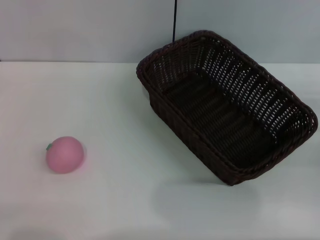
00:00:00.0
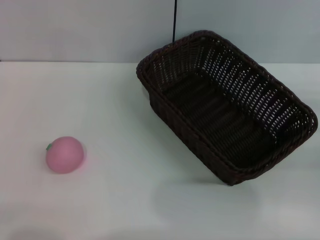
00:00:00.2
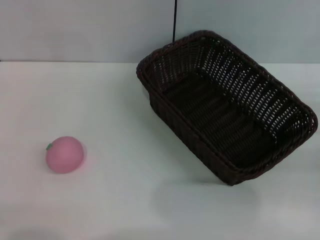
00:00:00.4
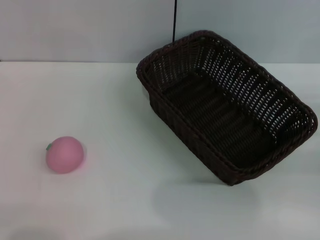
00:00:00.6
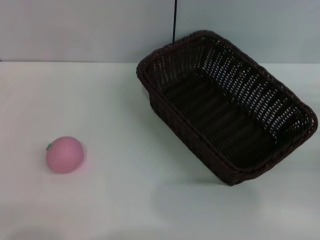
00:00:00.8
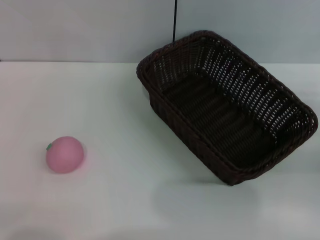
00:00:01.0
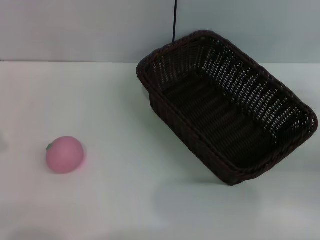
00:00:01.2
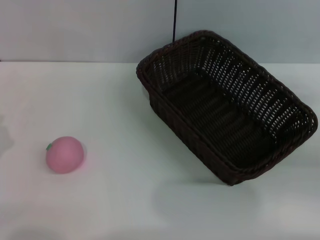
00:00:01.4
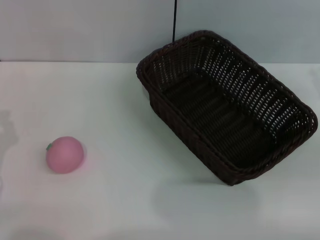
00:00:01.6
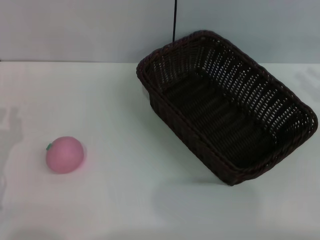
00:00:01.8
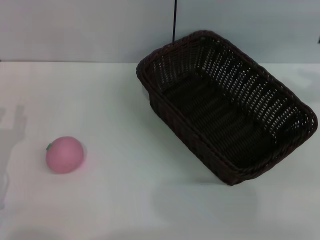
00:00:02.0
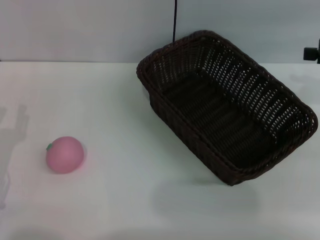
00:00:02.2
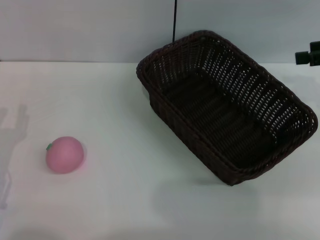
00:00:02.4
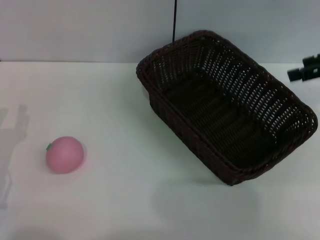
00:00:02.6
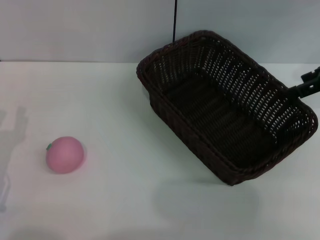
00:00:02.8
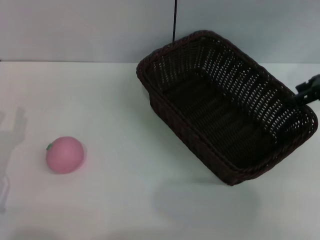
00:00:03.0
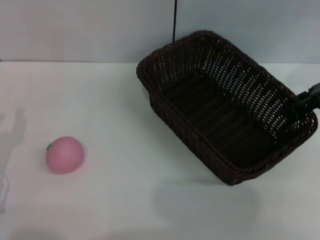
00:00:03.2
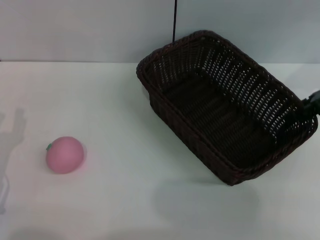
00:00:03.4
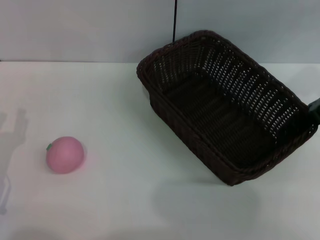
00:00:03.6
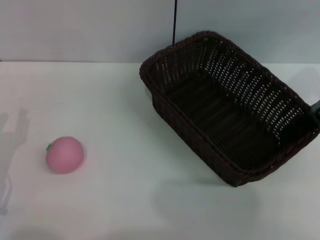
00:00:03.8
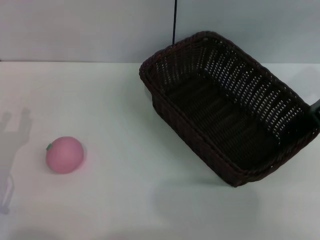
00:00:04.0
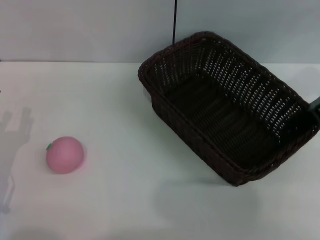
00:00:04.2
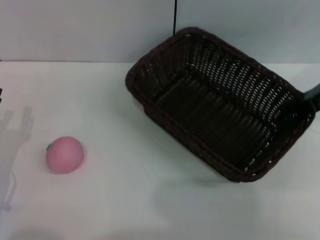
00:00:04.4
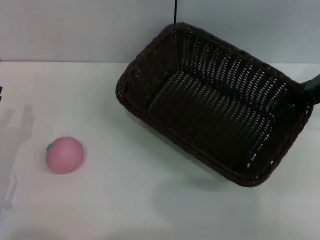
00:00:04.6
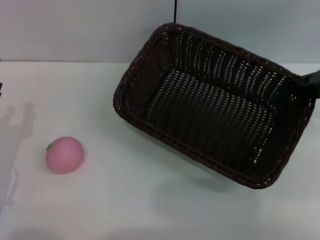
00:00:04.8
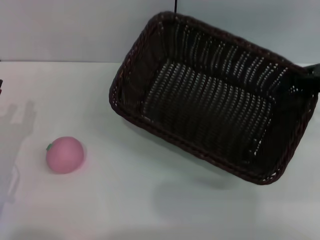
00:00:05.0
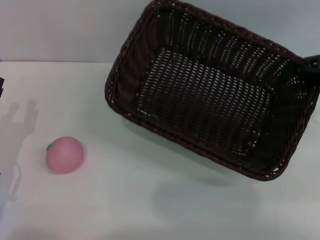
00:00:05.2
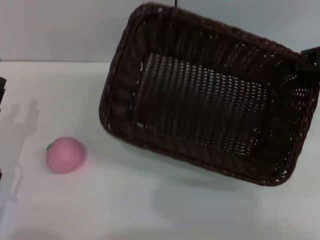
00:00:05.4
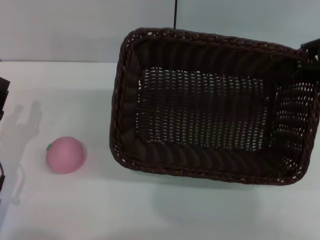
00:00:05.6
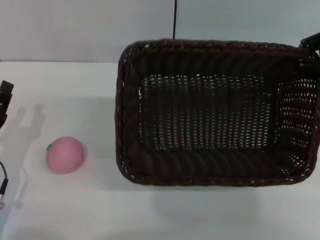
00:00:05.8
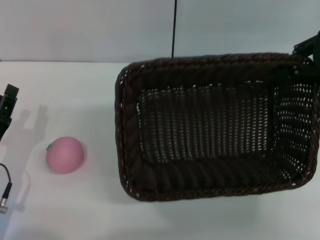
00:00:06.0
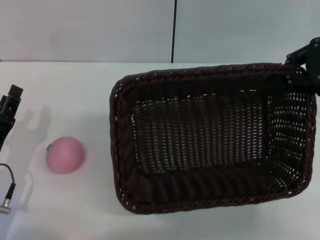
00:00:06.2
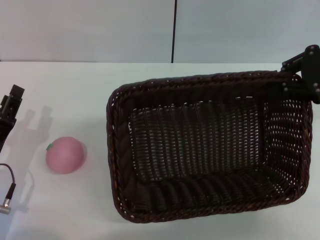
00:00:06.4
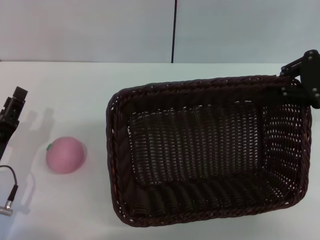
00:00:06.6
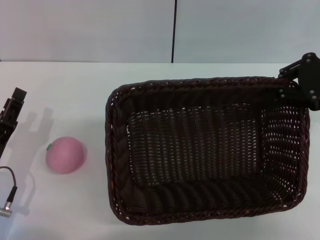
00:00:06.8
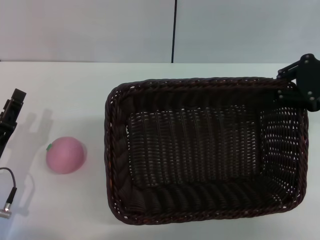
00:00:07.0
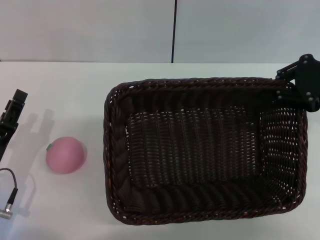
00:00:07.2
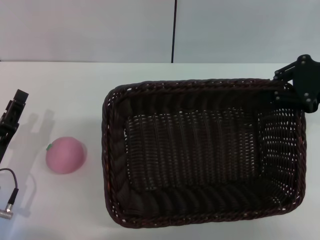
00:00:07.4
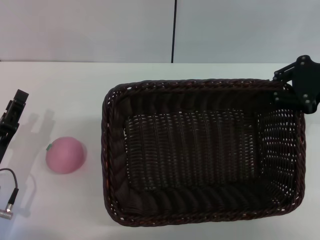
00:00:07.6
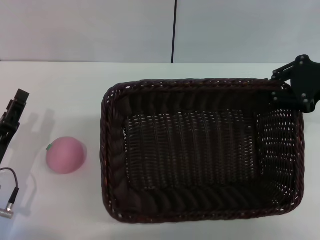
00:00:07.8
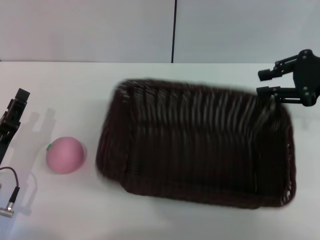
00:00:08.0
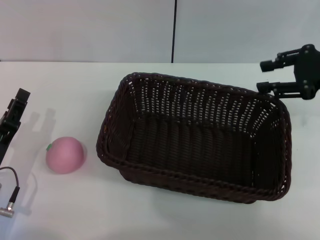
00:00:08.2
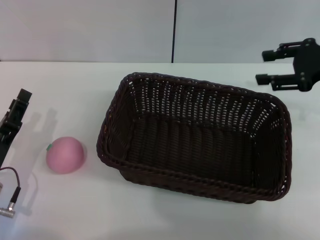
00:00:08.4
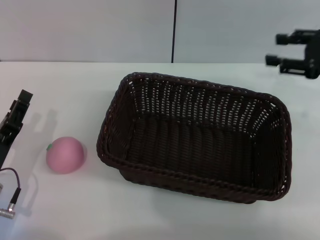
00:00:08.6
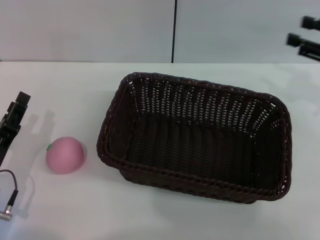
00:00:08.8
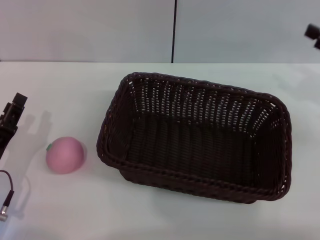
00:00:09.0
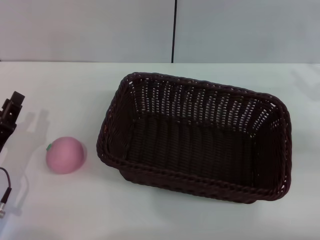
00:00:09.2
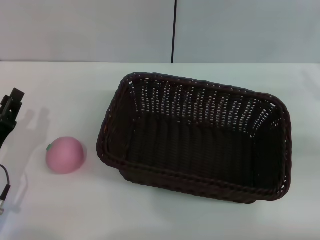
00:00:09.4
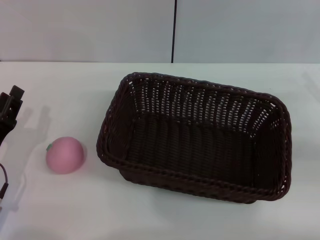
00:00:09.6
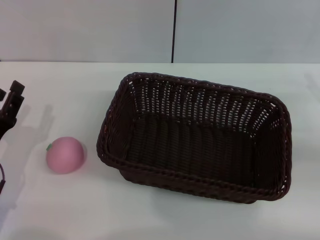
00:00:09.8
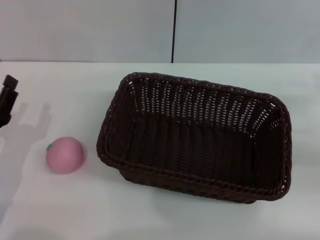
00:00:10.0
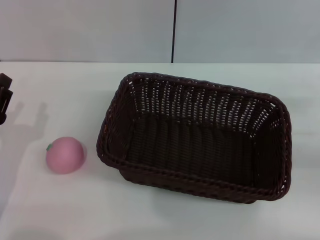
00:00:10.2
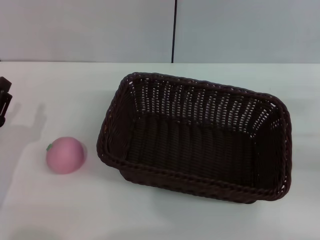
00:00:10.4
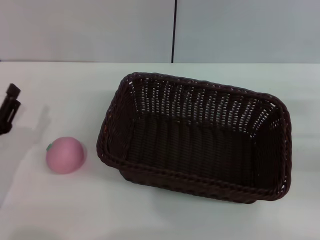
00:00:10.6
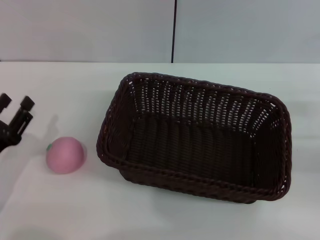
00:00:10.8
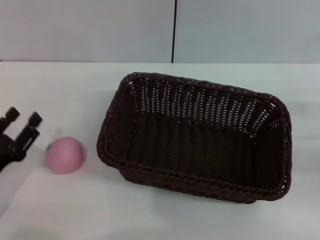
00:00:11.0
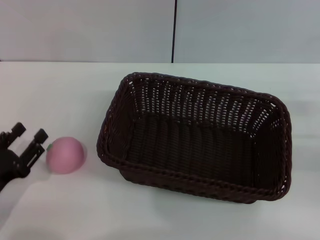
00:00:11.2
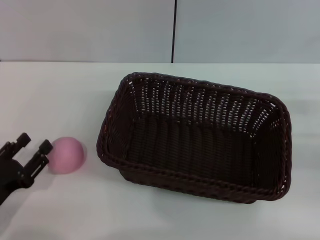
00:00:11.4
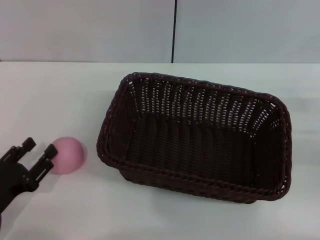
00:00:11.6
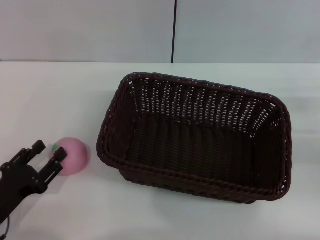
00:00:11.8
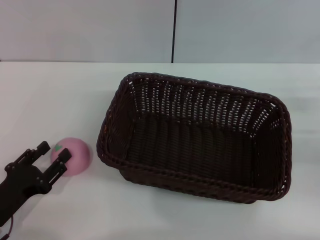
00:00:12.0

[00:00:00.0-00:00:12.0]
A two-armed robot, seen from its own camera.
Step, 00:00:00.0 to 00:00:04.6: Pick up the dark basket with the right gripper.
Step, 00:00:04.8 to 00:00:08.4: Place the dark basket in the center of view with the right gripper.
00:00:01.6 to 00:00:03.0: The right gripper goes roughly 15 cm upward, forward and to the left, and opens up.
00:00:03.0 to 00:00:04.4: The right gripper closes up.
00:00:07.6 to 00:00:09.0: The right gripper travels to the right by about 5 cm, and opens its fingers.
00:00:09.0 to 00:00:10.4: The right gripper shifts approximately 10 cm downward and backward.
00:00:10.4 to 00:00:12.0: The left gripper changes place by some 5 cm.

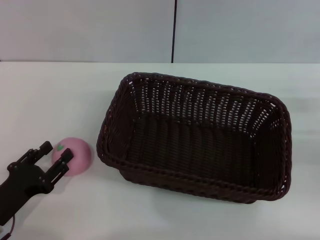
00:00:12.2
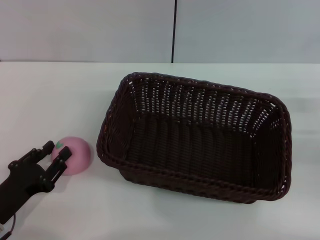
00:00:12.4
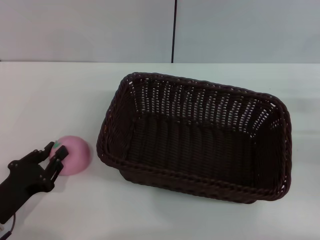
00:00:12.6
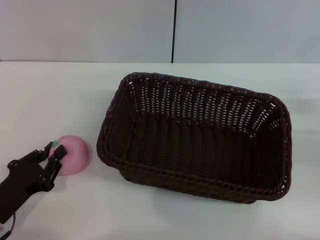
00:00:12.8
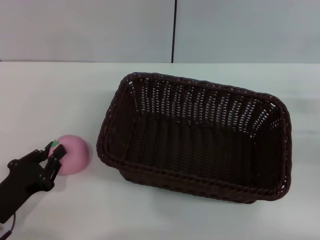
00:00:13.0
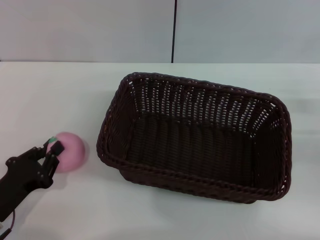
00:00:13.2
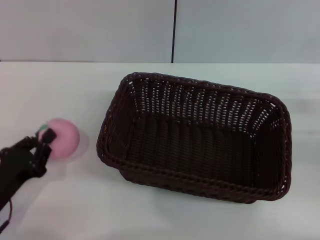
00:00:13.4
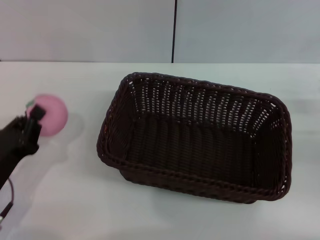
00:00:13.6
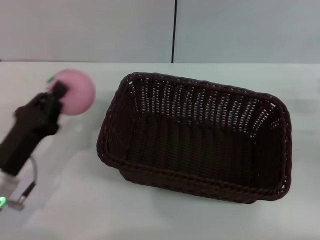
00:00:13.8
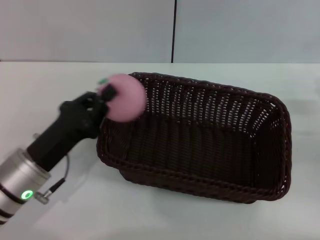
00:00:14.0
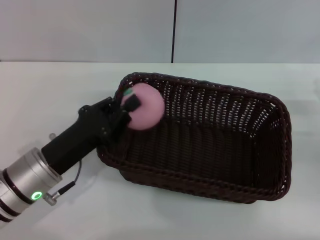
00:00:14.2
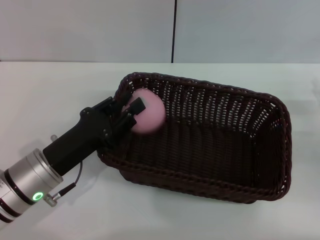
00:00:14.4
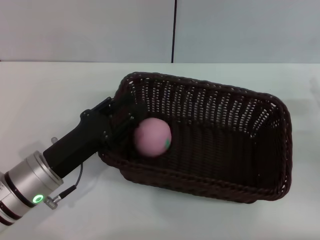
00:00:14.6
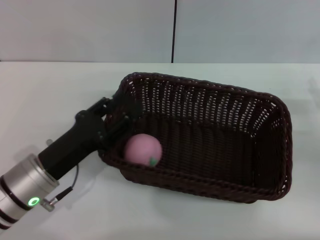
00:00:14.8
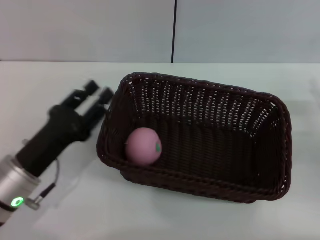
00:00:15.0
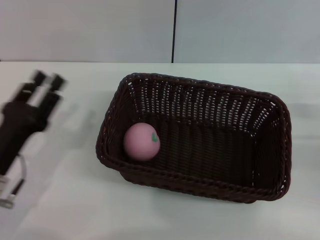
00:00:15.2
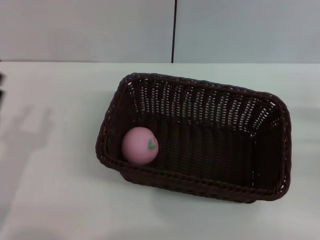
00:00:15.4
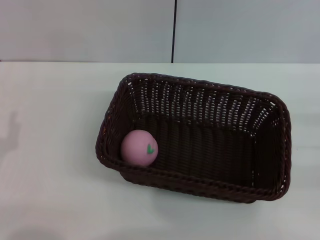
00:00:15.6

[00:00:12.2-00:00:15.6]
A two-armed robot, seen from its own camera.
Step, 00:00:13.6 to 00:00:14.8: Place the peach into the basket with the left gripper.
00:00:12.2 to 00:00:13.8: The left gripper ends up roughly 5 cm from where it was, and closes.
00:00:13.8 to 00:00:15.6: The left gripper shifts approximately 5 cm to the left, and opens.
